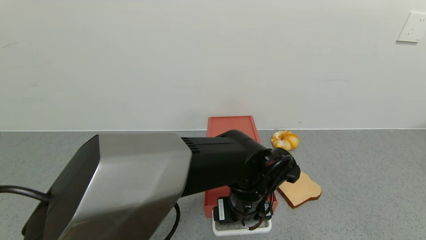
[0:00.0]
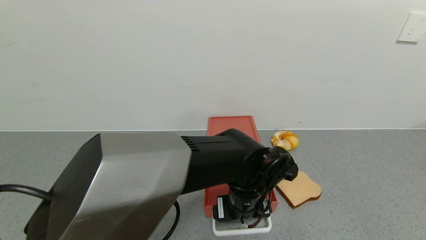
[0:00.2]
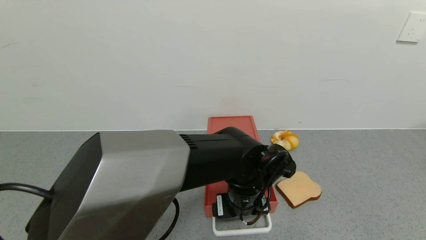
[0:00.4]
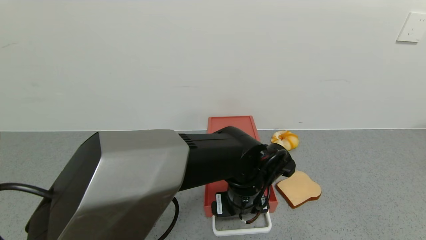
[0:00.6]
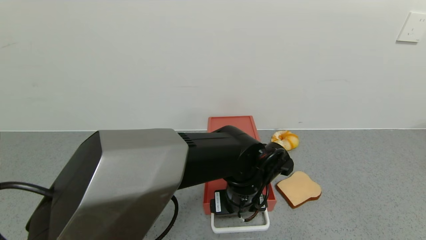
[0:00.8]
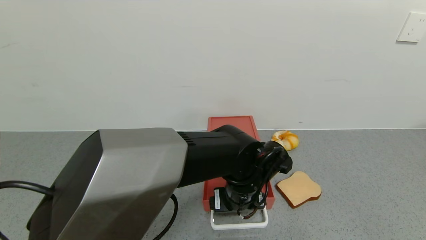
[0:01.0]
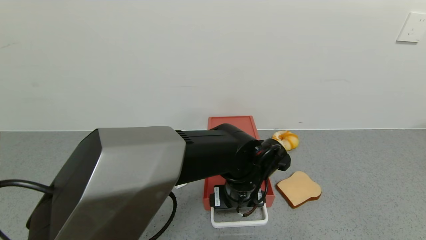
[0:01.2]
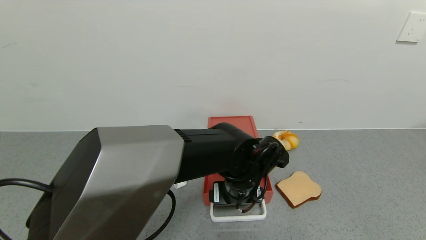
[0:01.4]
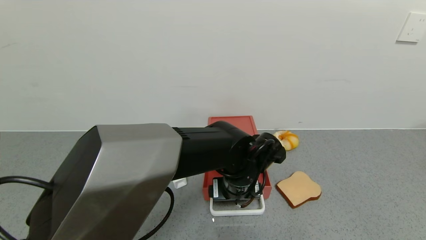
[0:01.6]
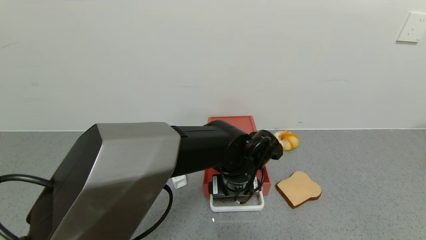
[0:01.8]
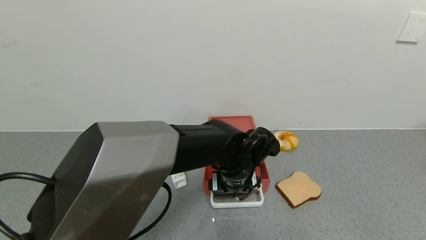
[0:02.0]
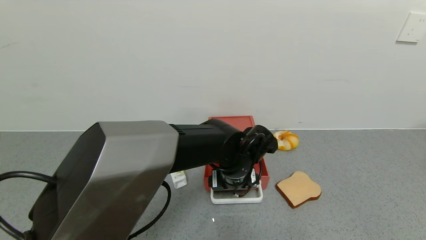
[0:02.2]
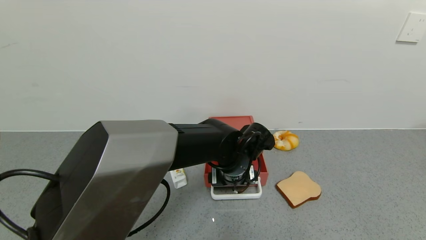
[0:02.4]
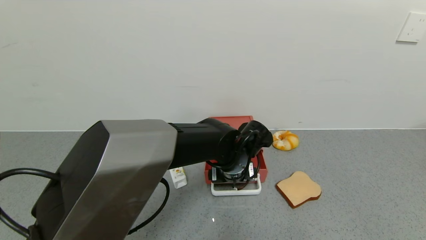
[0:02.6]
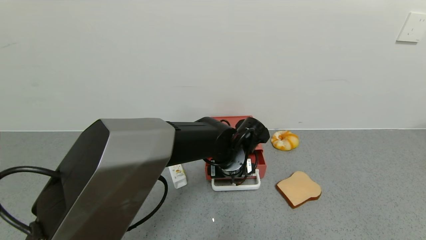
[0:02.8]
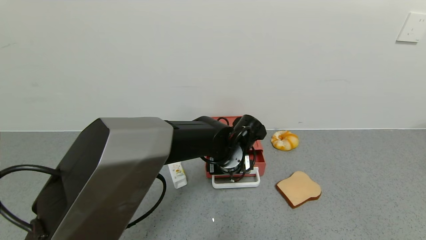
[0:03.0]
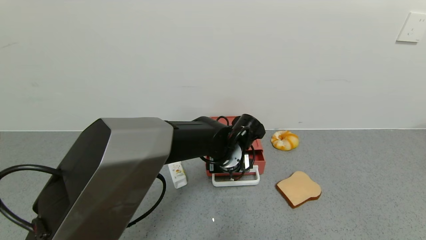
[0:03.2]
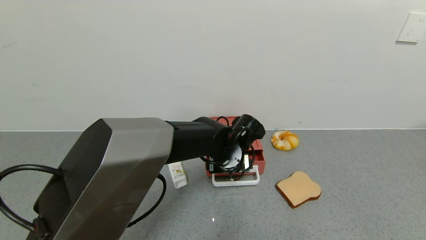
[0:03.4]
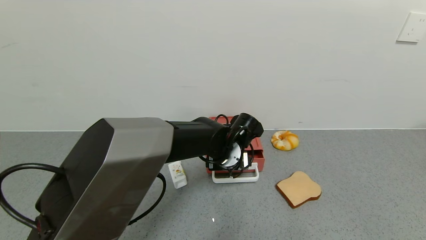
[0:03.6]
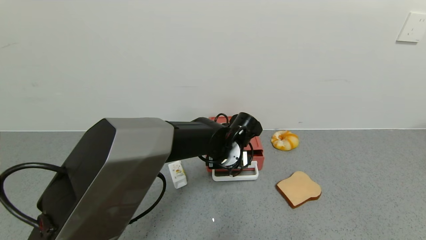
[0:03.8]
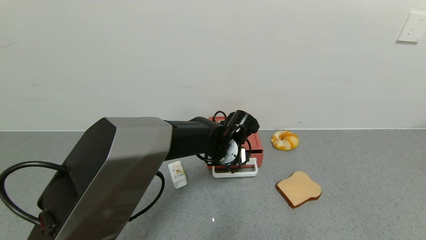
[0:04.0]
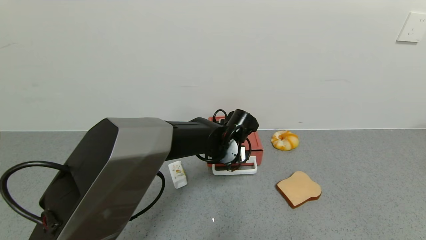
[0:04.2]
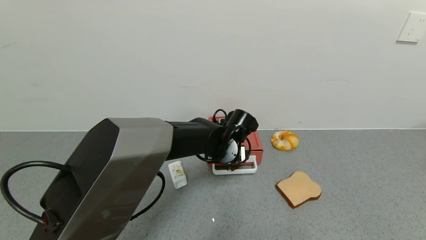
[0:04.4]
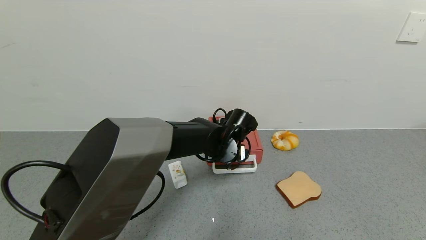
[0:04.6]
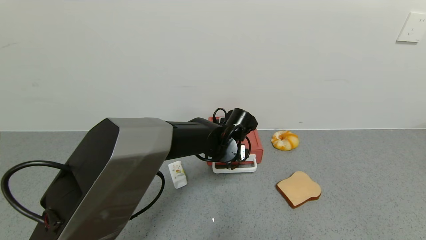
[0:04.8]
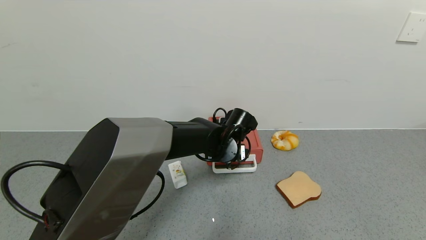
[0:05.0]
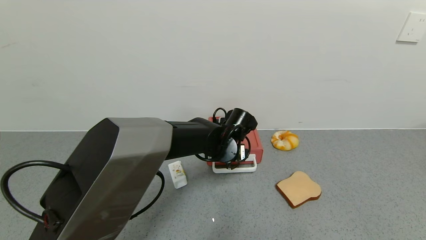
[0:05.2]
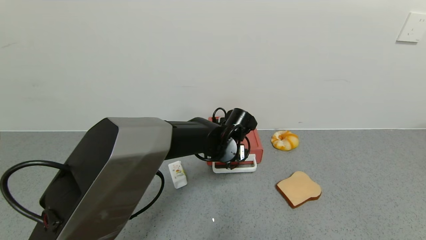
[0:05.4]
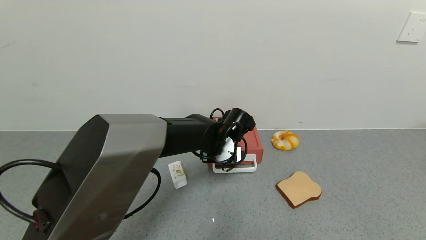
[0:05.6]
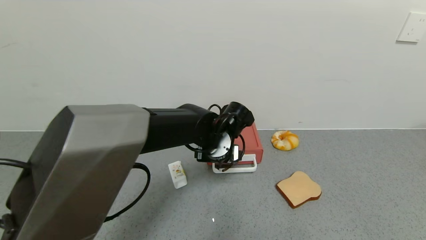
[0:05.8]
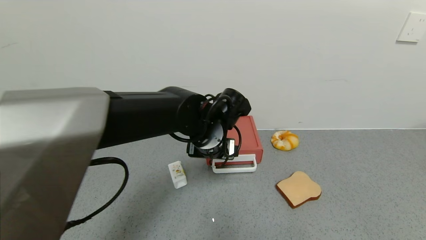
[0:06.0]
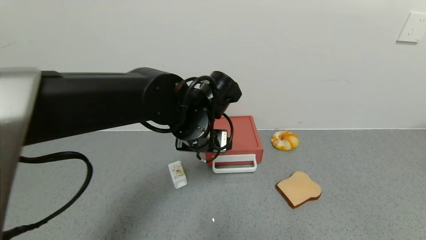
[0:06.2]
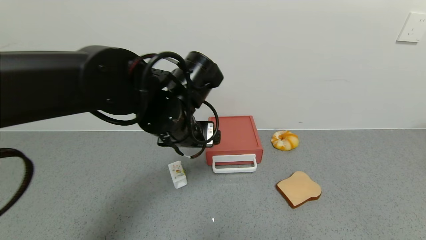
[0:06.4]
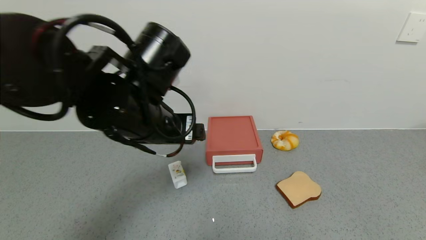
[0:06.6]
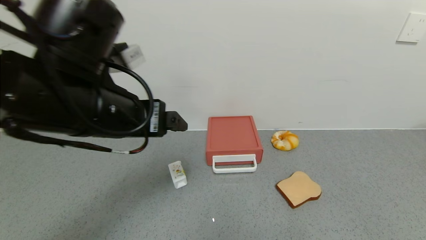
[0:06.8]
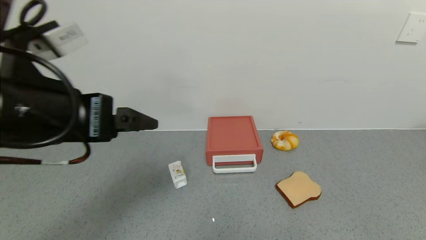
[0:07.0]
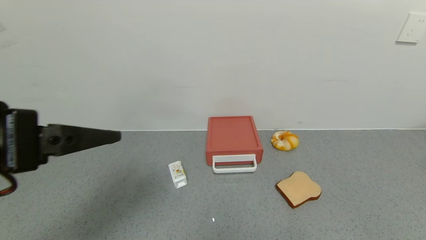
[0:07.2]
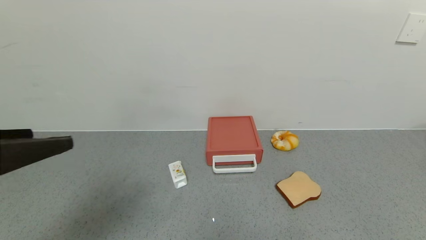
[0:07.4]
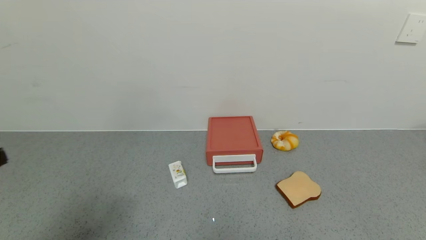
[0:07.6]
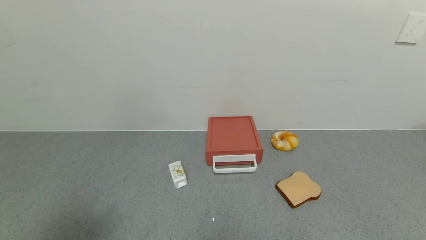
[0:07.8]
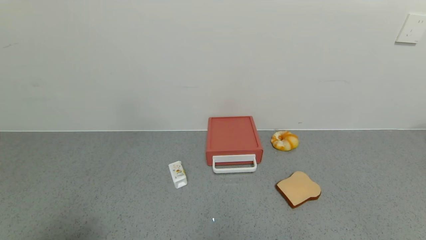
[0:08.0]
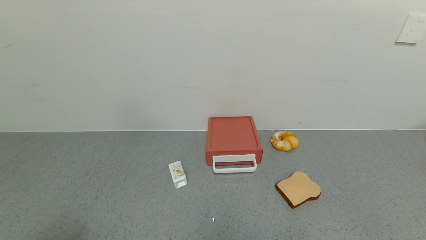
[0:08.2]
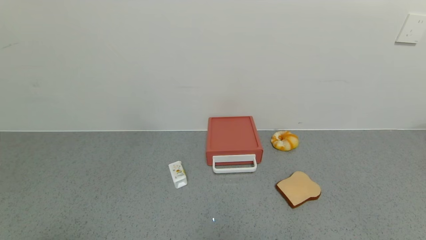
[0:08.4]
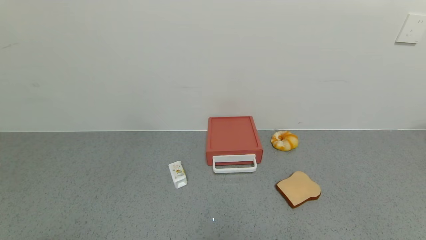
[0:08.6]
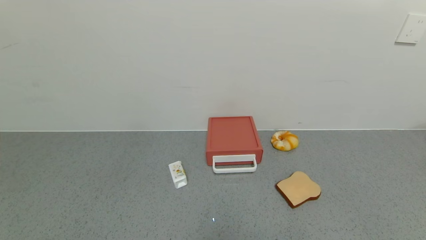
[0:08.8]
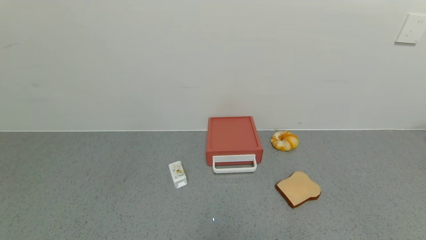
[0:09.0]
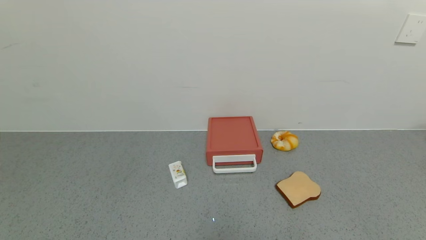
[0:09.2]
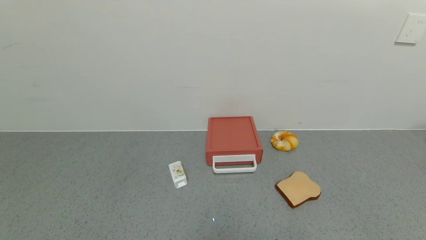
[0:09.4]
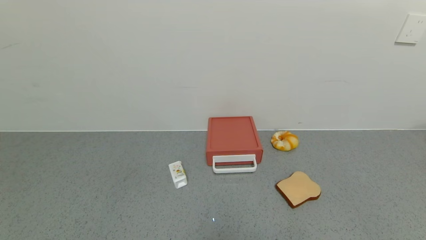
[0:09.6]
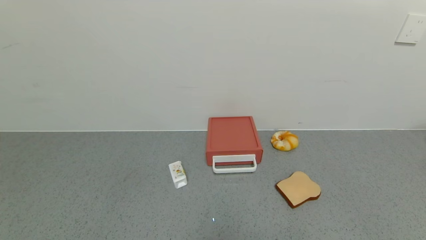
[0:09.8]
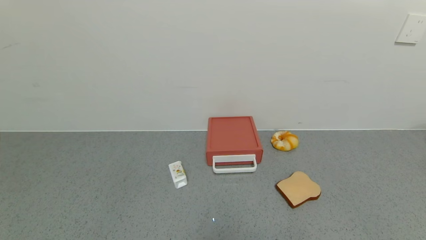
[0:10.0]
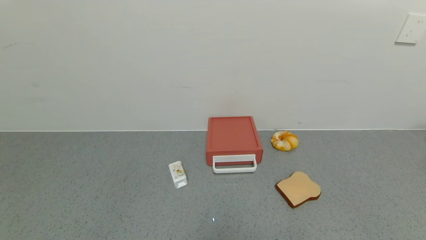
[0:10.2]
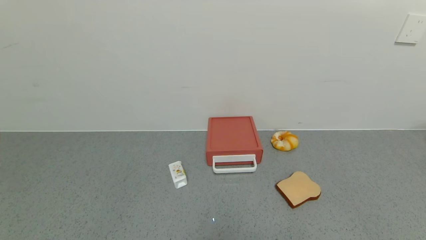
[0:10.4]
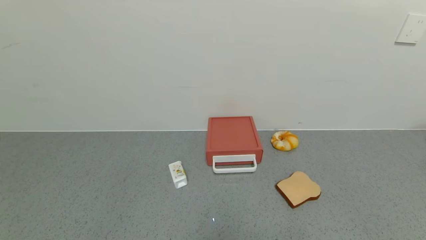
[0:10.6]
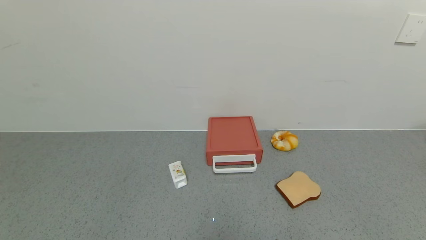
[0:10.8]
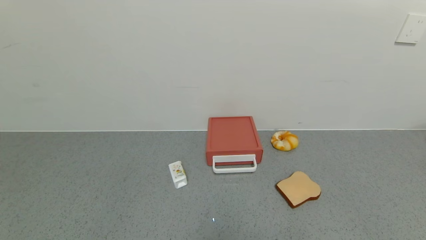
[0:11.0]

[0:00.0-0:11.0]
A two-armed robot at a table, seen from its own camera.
Task of the whole recording: use the gripper to open the drawer and close the red drawer.
Step, 0:00.0 to 0:06.0: Close the red drawer with the left gripper.
0:00.0 to 0:01.6: There are only small adjustments of the grippers.
0:01.6 to 0:03.2: The left gripper travels forward by about 5 cm.
0:03.2 to 0:04.8: The grippers stay close to where they were, moving slightly.
0:04.8 to 0:06.2: The left gripper is displaced upward, backward and to the left by some 15 cm.
0:06.2 to 0:07.8: The left gripper travels backward and to the left by roughly 40 cm.
0:07.8 to 0:09.4: The left gripper shifts approximately 15 cm downward and backward.

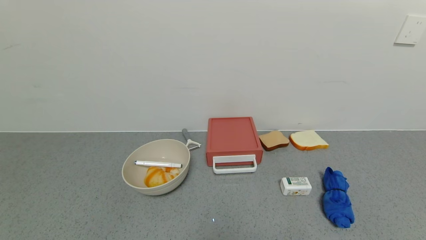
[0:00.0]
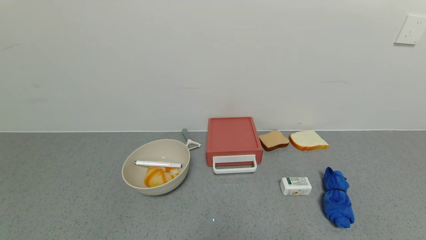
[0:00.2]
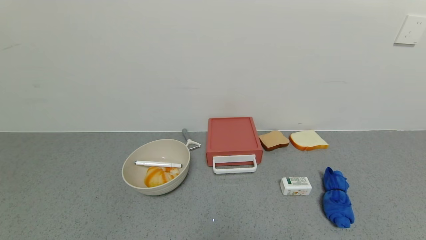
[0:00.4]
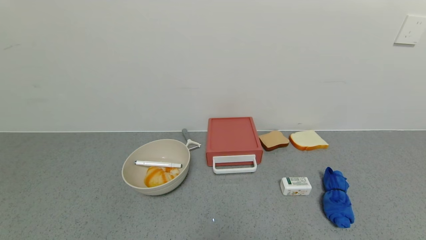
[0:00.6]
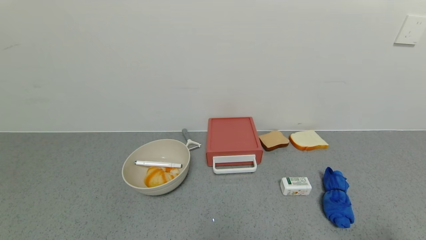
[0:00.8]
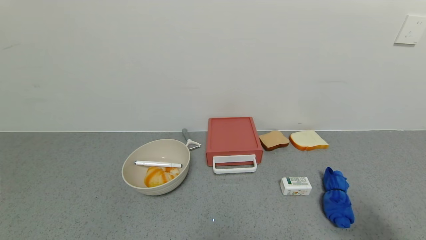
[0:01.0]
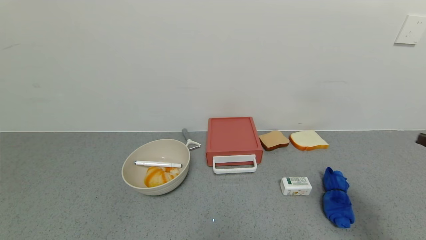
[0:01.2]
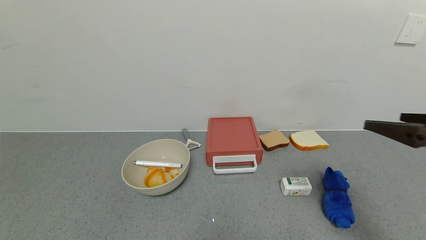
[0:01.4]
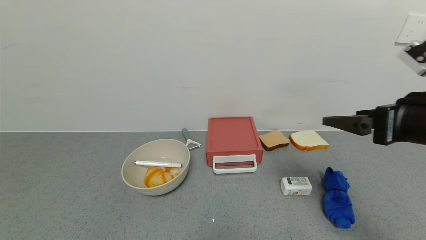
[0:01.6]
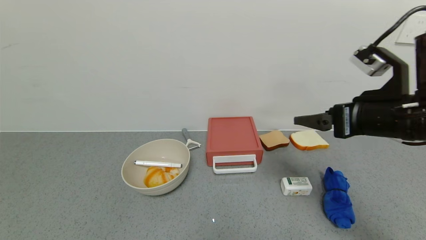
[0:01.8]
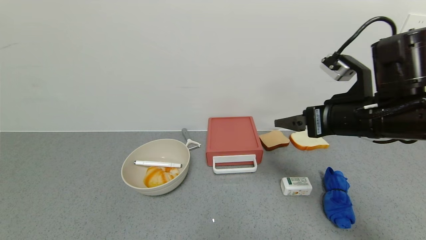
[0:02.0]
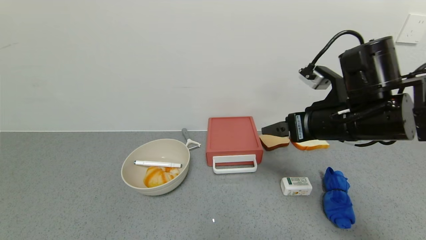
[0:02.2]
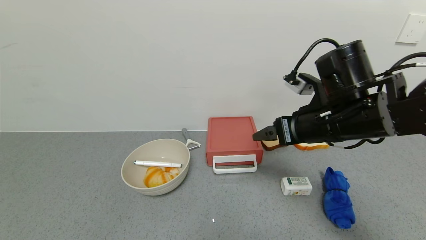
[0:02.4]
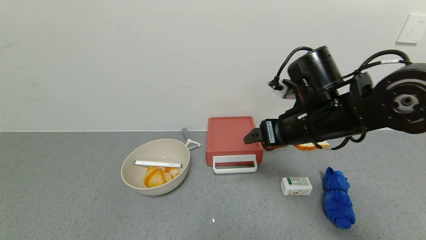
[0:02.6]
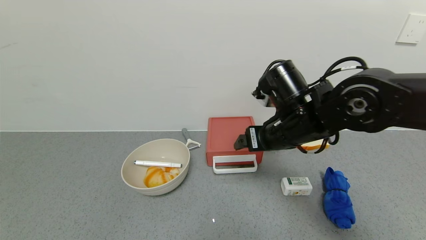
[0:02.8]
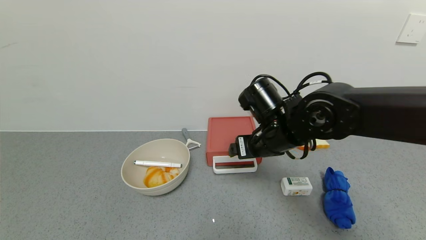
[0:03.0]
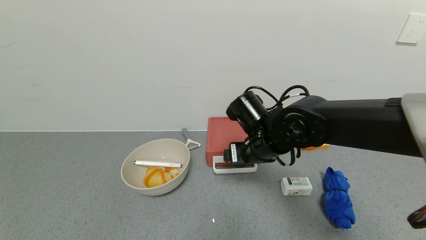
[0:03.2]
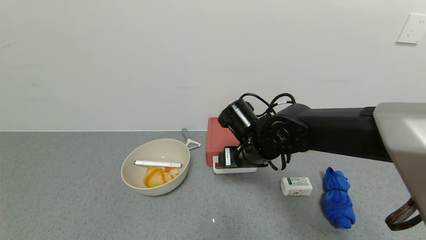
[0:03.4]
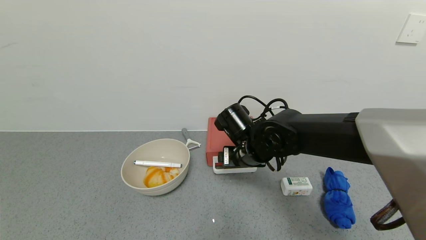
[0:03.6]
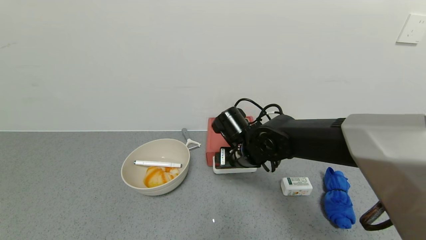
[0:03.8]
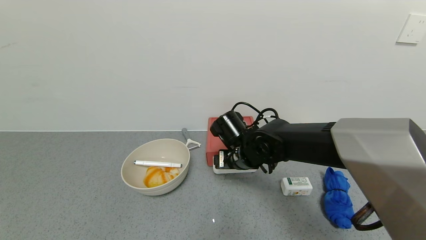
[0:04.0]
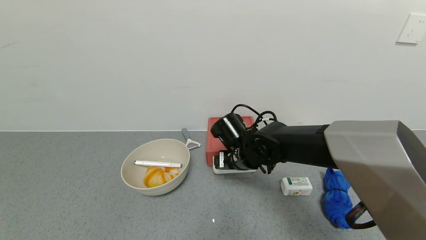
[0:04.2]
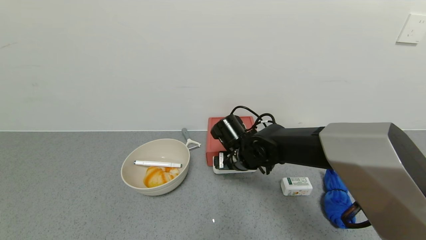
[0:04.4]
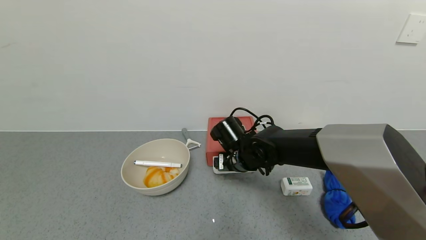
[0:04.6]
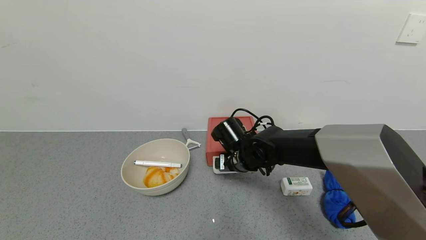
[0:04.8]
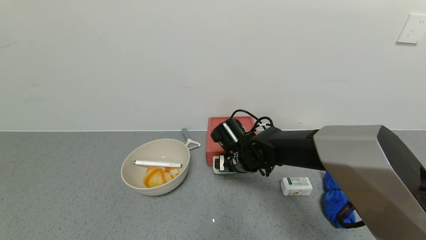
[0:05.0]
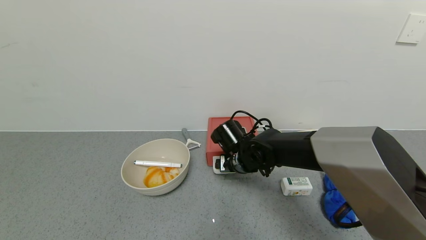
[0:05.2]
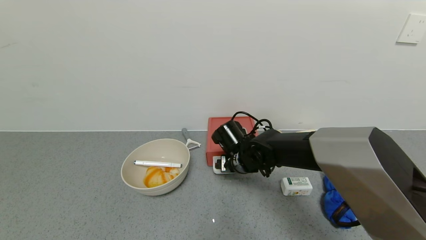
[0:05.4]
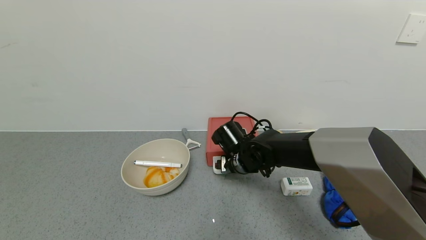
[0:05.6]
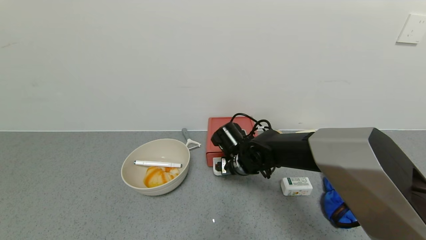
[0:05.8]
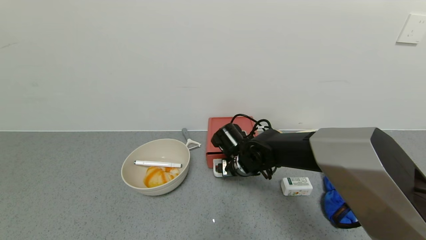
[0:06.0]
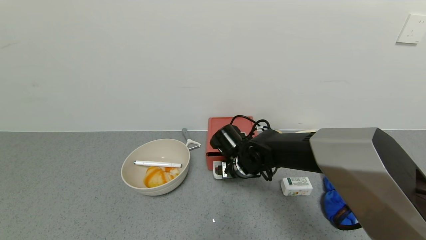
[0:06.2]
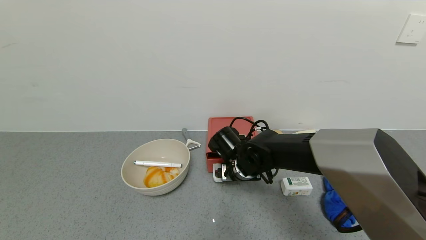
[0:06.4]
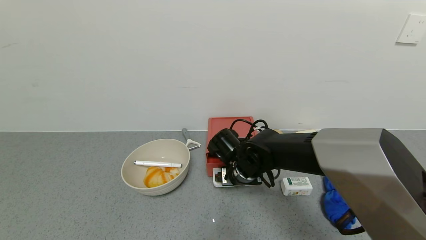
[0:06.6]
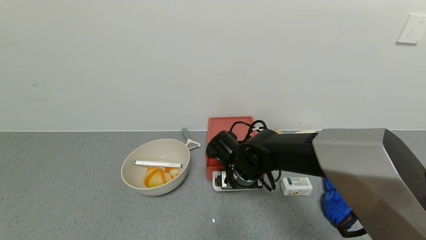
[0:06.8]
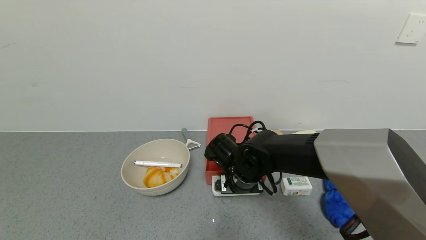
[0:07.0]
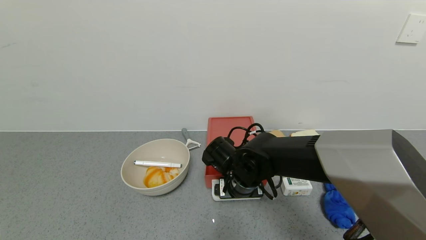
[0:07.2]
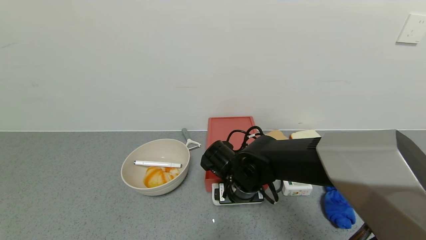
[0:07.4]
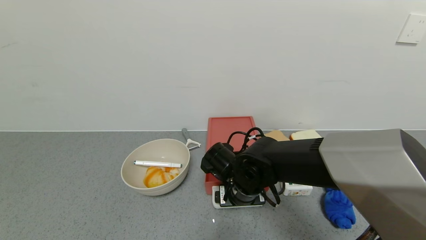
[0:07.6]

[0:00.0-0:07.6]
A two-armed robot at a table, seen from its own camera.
Task of the whole recording: use the gripper to open the drawer and close the red drawer.
0:00.0 to 0:01.6: The right gripper goes approximately 30 cm forward and upward.
0:01.6 to 0:03.0: The right gripper moves to the left, forward and downward, approximately 25 cm.
0:03.0 to 0:04.6: The right gripper is displaced downward and to the left by roughly 10 cm.
0:04.6 to 0:06.0: The grippers make only small movements.
0:06.0 to 0:07.6: The right gripper heads backward, covering roughly 5 cm.
